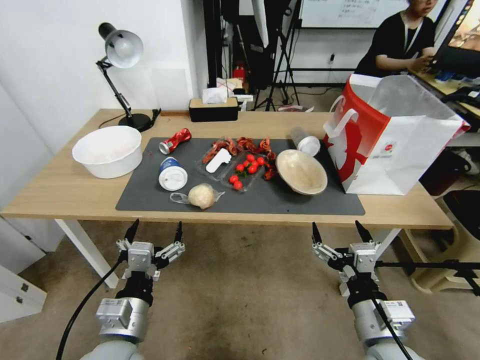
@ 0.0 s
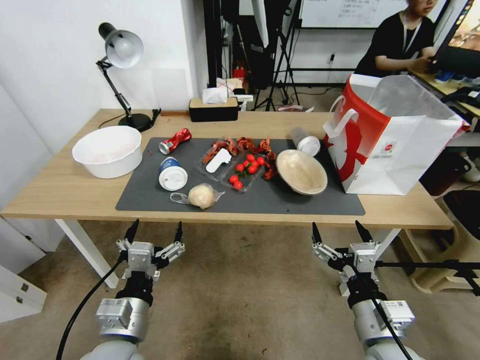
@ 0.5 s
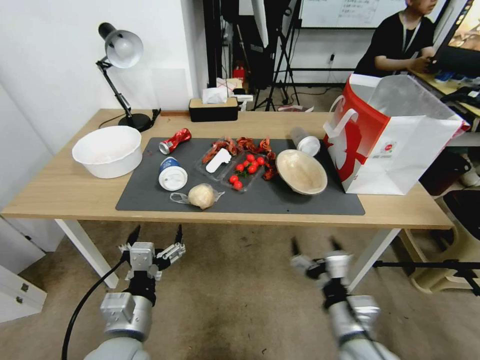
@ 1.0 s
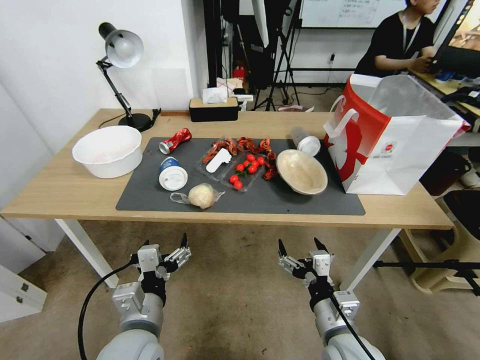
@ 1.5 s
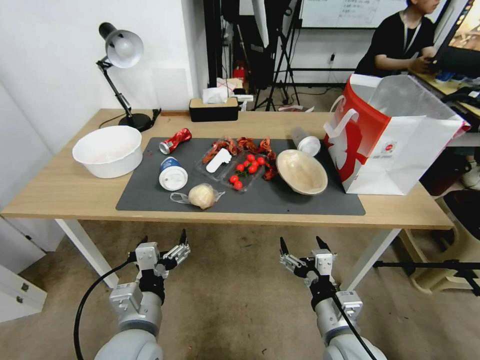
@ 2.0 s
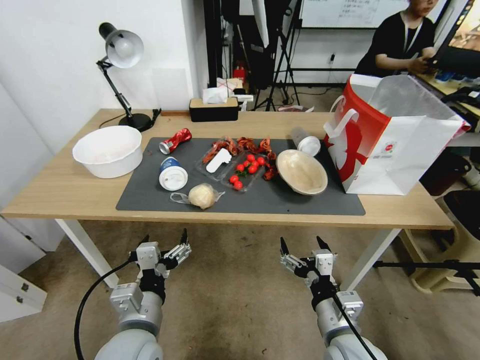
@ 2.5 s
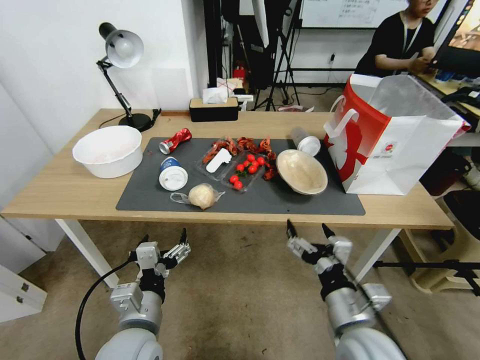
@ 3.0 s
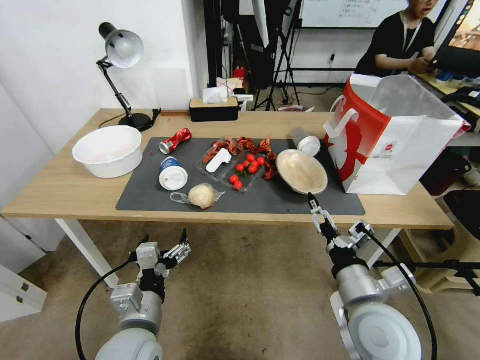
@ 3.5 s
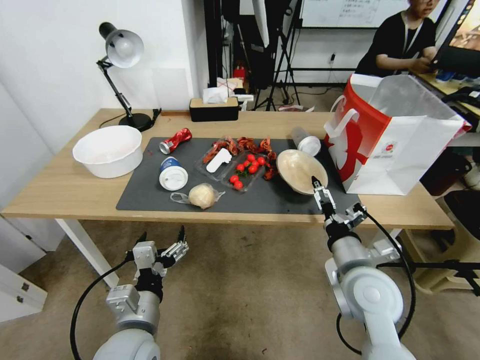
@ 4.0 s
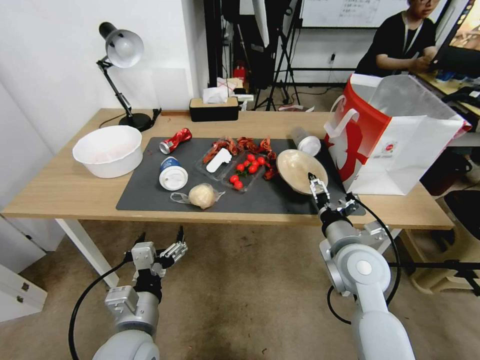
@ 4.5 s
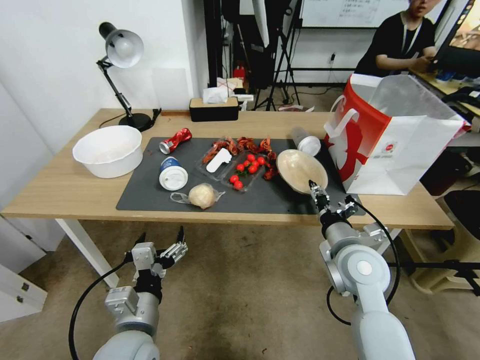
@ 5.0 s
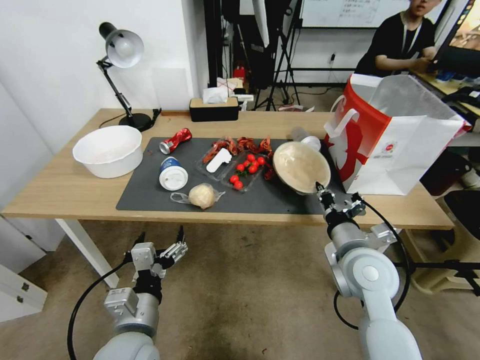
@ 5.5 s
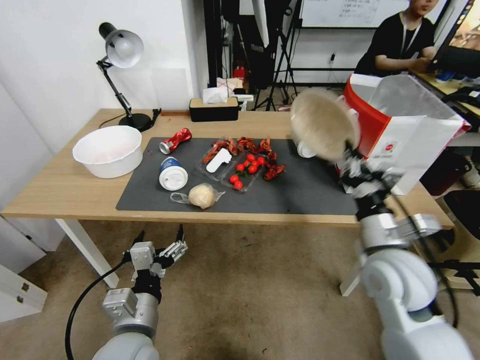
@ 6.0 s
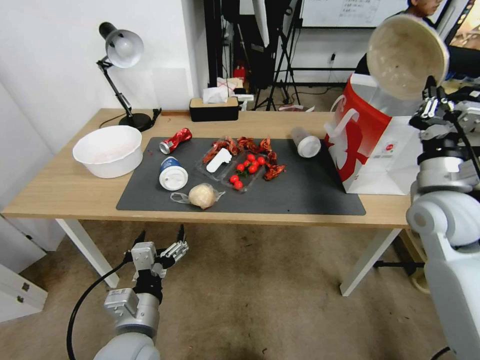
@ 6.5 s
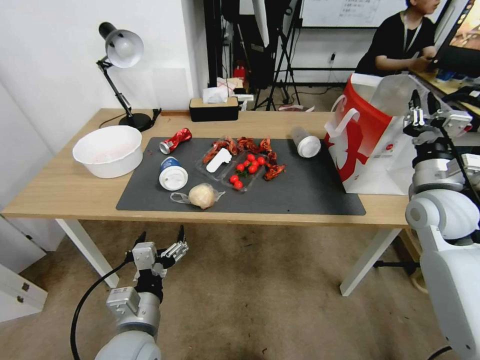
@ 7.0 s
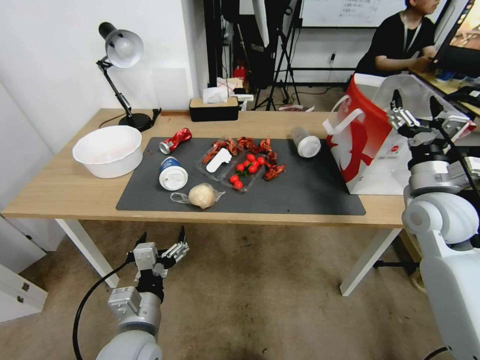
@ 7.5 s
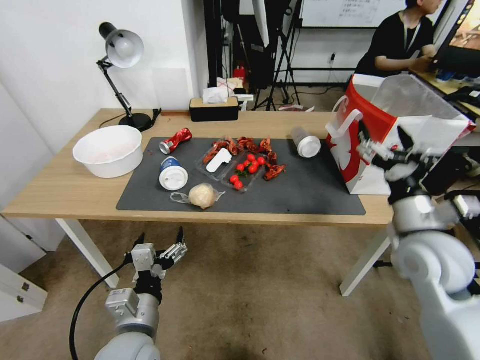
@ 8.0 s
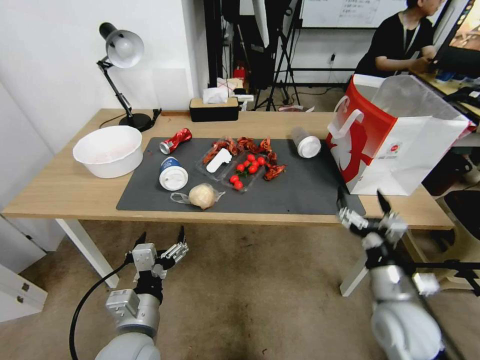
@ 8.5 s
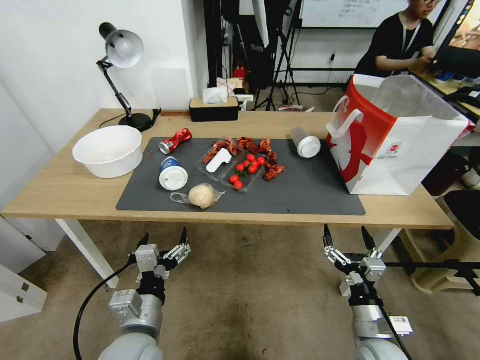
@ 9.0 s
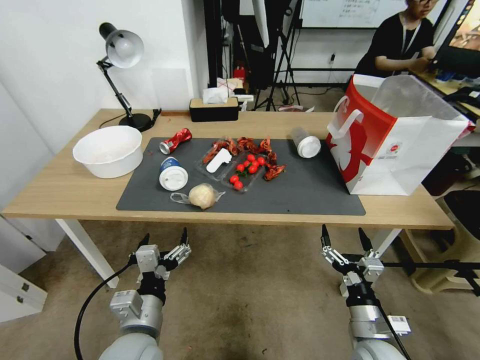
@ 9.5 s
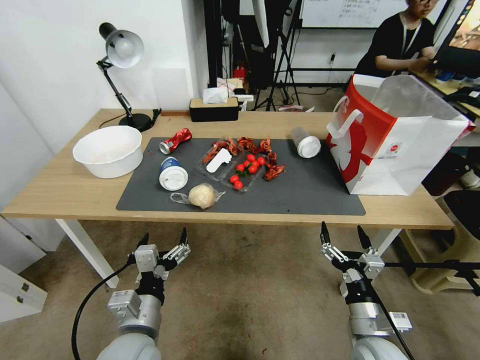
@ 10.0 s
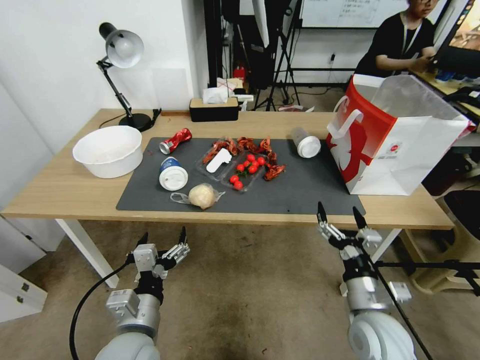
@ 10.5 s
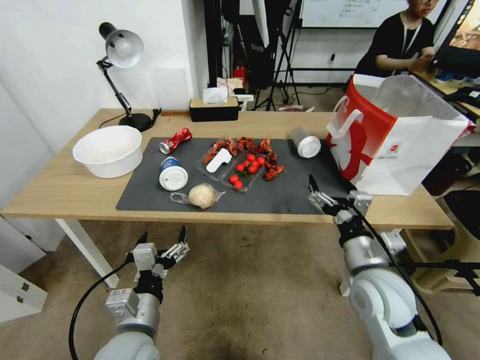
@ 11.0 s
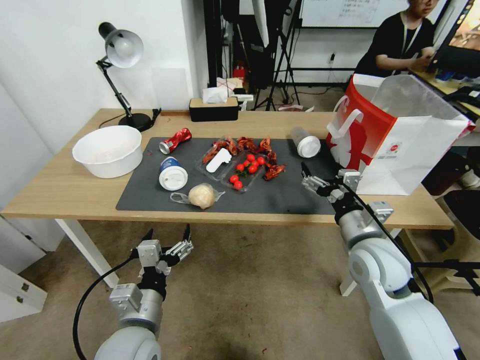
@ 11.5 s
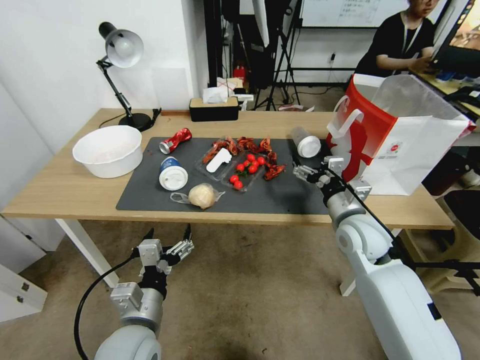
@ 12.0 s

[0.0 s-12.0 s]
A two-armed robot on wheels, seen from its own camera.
2.0 to 4.0 s: The right gripper moves upward and forward, about 10 cm.
4.0 to 6.0 s: The right gripper travels forward by roughly 5 cm, and closes.
6.0 to 8.0 s: The right gripper goes about 10 cm to the right and upward, and opens.
8.0 to 10.0 s: The right gripper heads downward and backward, covering about 25 cm.
10.0 to 12.0 s: The right gripper is displaced forward and upward by approximately 25 cm.

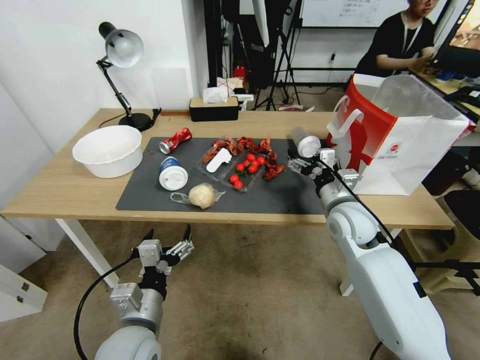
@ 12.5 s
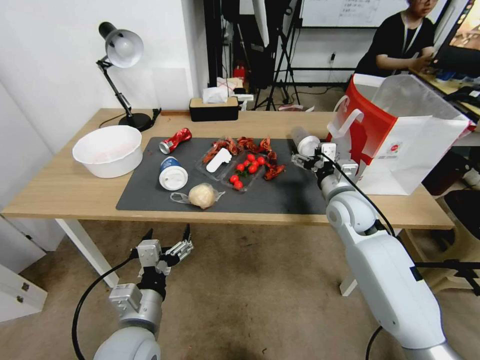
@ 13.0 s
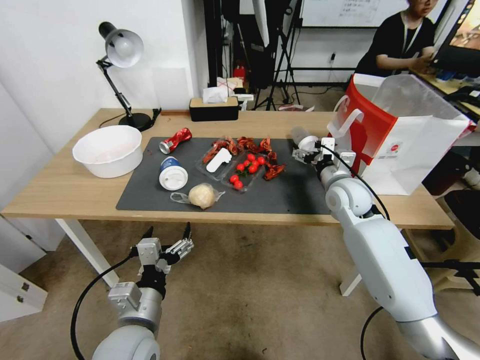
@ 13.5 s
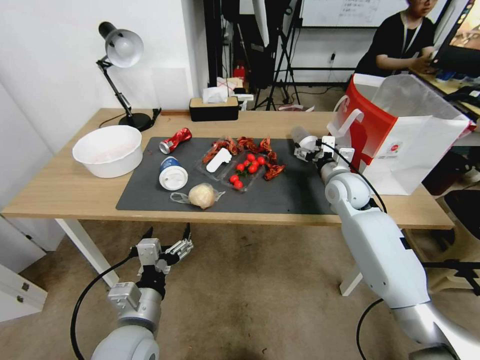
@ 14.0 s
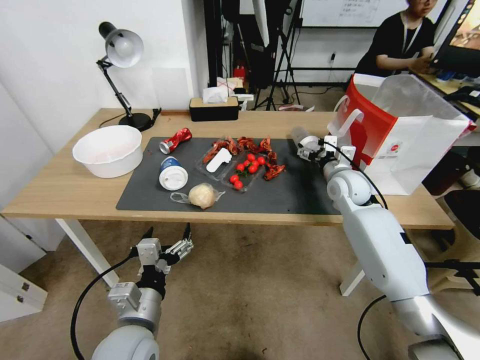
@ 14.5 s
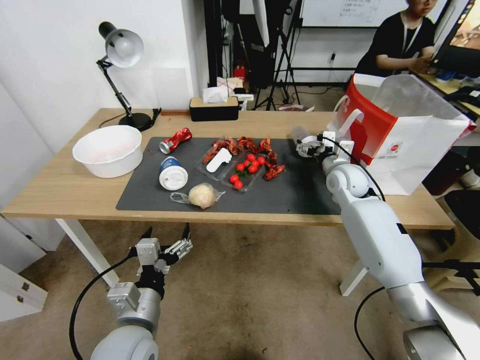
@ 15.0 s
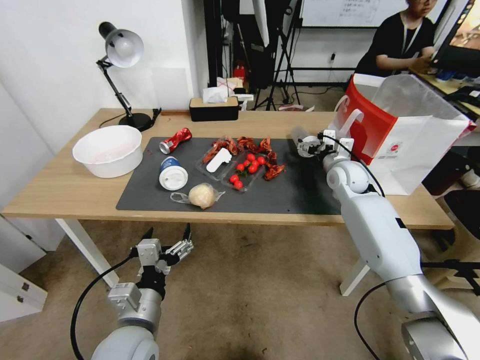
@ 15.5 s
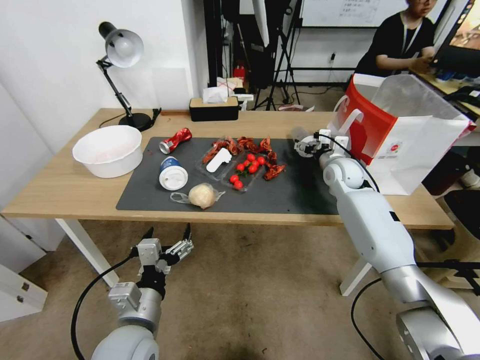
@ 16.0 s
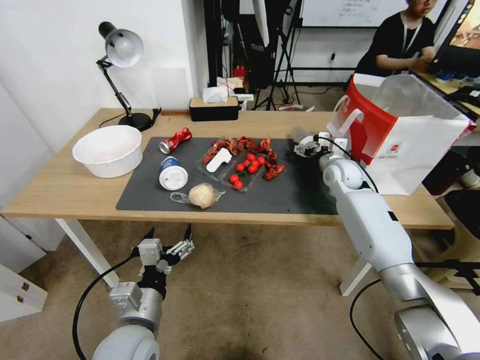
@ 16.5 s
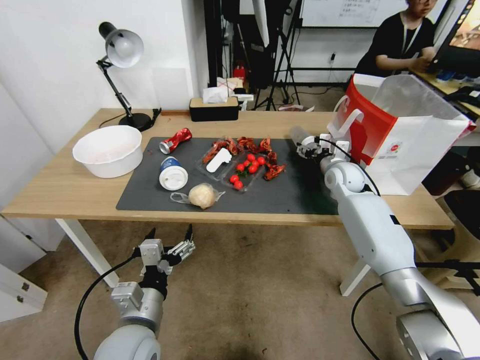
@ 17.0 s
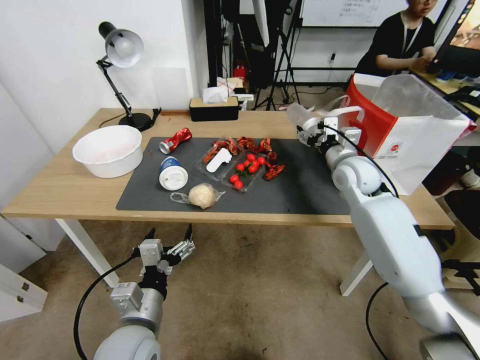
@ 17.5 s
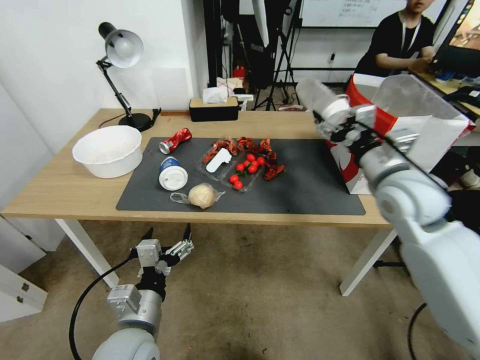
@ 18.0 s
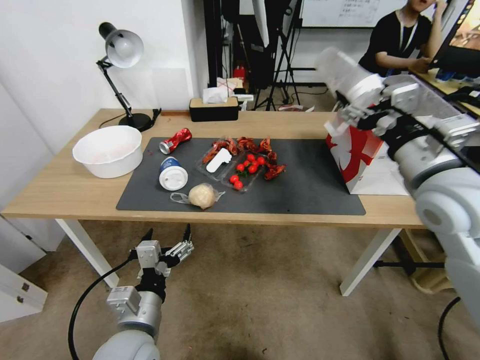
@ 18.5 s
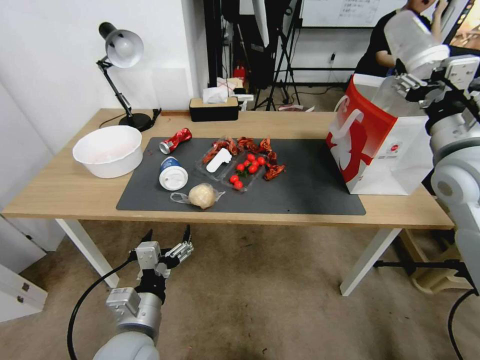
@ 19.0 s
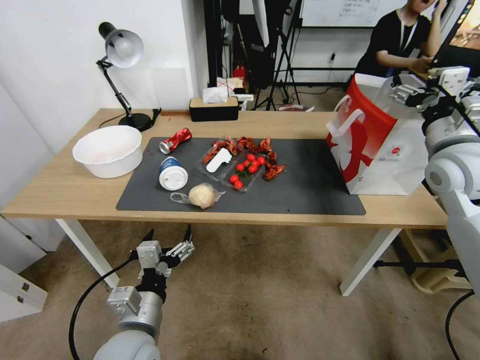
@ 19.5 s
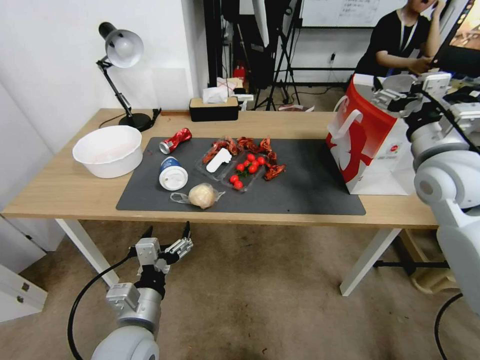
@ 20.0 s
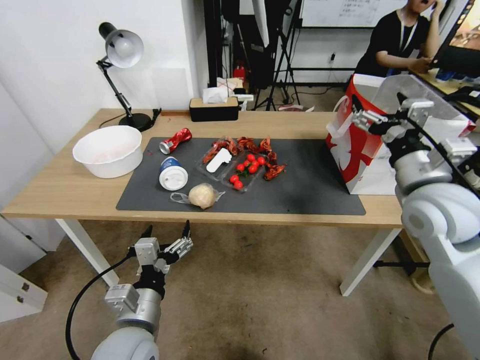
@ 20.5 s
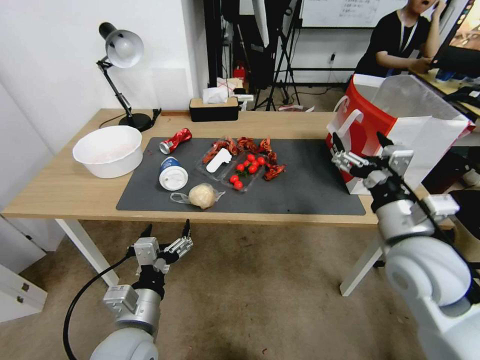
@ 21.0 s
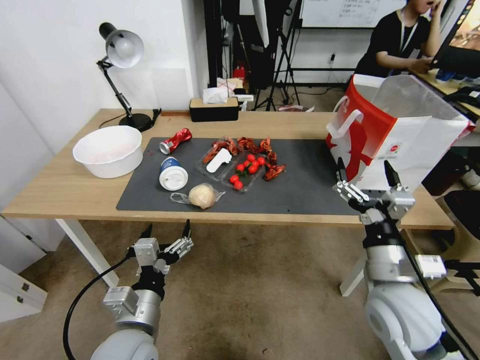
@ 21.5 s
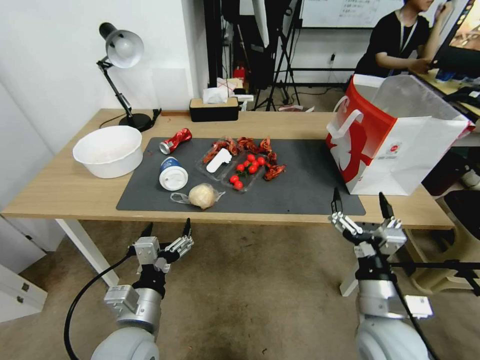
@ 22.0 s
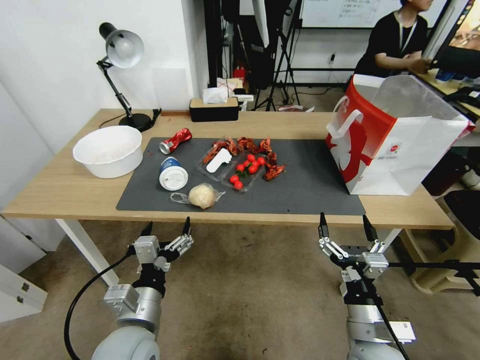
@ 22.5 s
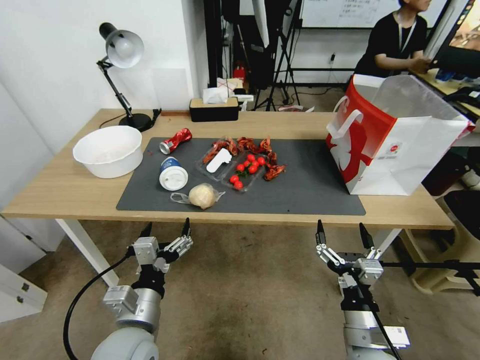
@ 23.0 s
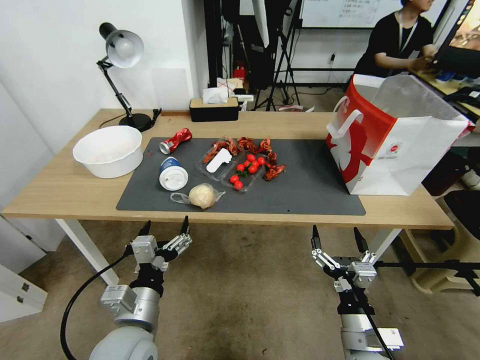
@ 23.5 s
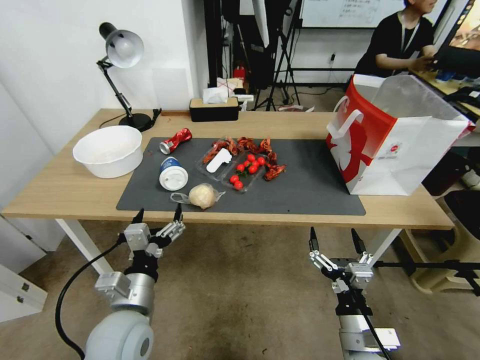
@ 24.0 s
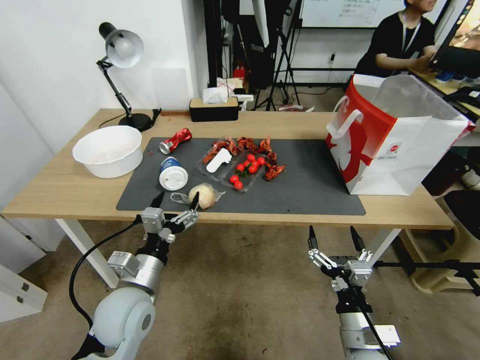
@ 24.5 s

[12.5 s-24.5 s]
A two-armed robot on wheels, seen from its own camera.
12.5 to 14.5 s: The right gripper goes approximately 10 cm forward.
14.5 to 16.5 s: The right gripper shifts roughly 5 cm forward.
16.5 to 18.5 s: The right gripper goes approximately 30 cm backward and upward.
18.5 to 20.5 s: The right gripper travels downward by about 5 cm, and reaches some 10 cm forward, then returns.
20.5 to 22.5 s: The right gripper shifts about 30 cm downward and backward.
22.5 to 24.5 s: The left gripper travels forward by about 5 cm.

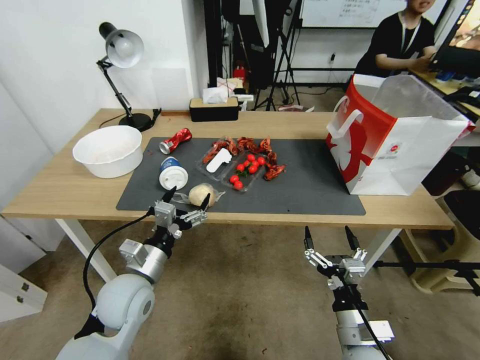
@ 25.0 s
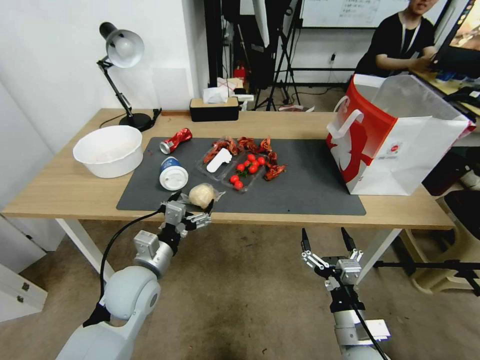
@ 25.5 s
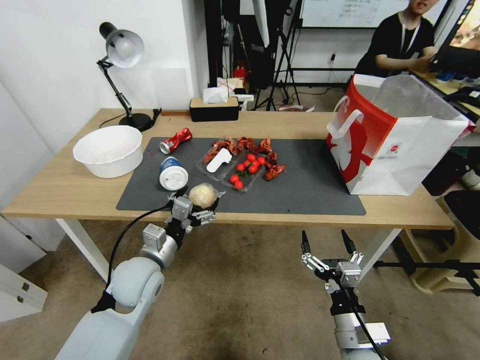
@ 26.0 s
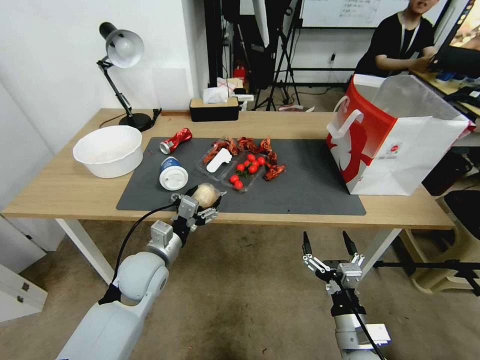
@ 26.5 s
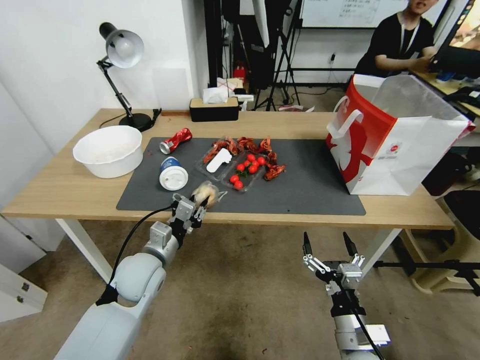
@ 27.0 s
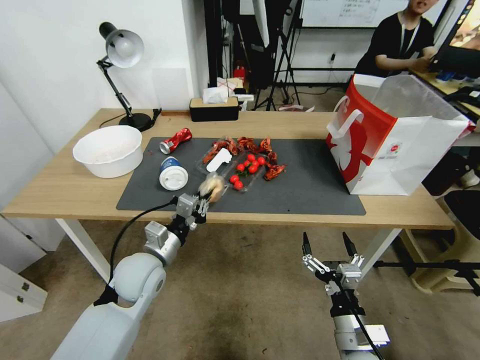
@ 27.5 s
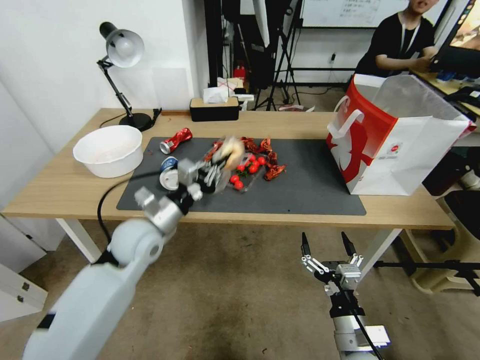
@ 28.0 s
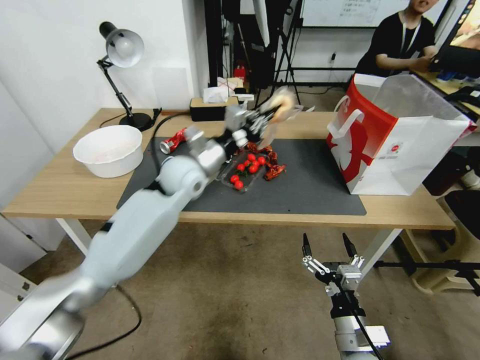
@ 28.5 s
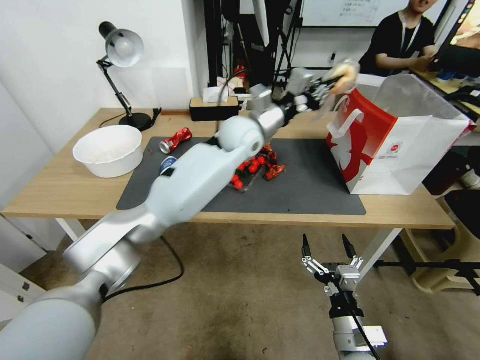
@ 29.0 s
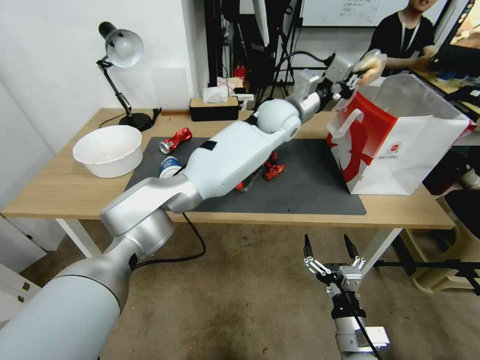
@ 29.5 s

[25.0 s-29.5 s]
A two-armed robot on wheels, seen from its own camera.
25.0 to 27.0 s: The left gripper goes approximately 5 cm forward, and closes.
27.0 to 29.5 s: The left gripper travels to the right, forward and upward by about 50 cm.
